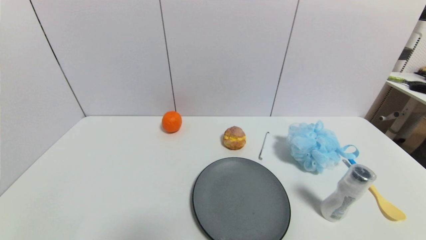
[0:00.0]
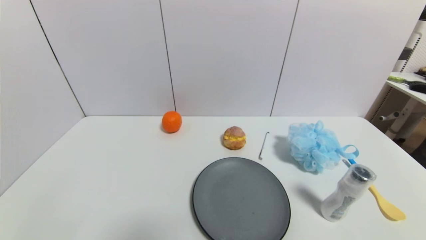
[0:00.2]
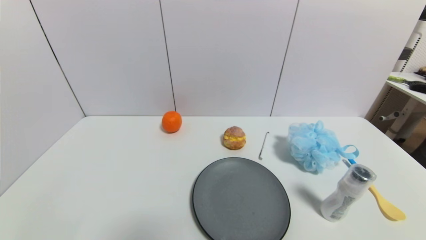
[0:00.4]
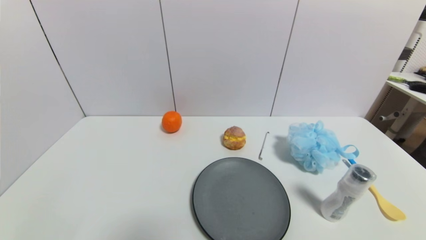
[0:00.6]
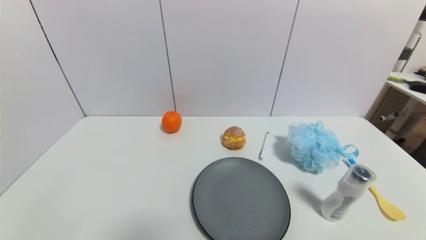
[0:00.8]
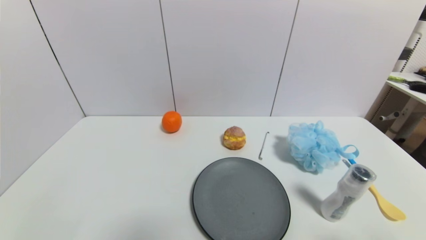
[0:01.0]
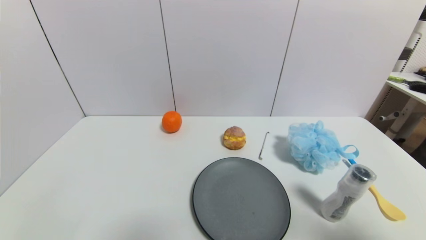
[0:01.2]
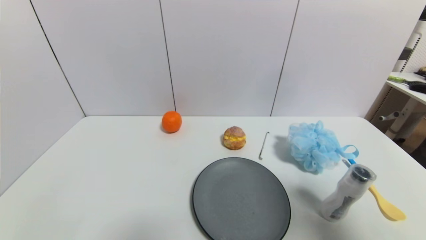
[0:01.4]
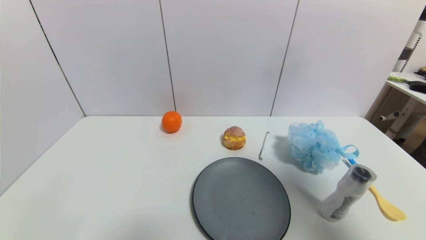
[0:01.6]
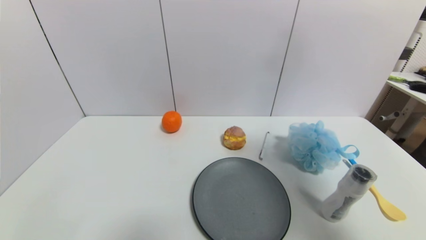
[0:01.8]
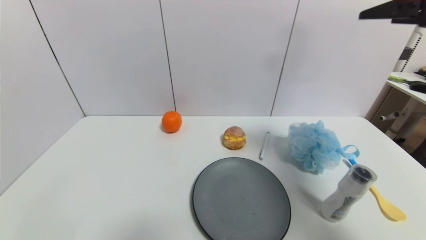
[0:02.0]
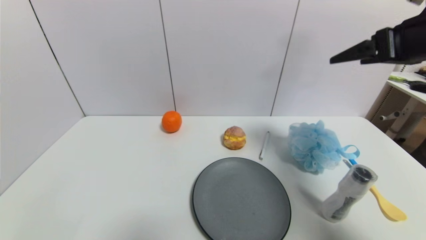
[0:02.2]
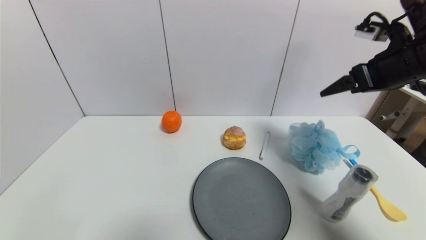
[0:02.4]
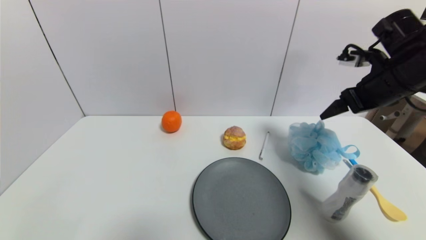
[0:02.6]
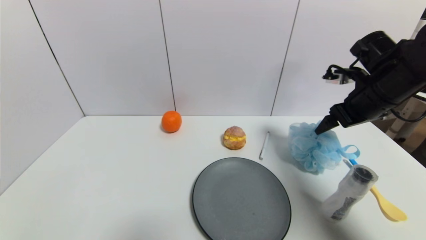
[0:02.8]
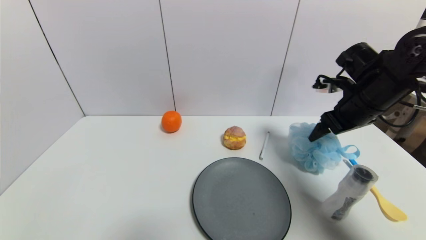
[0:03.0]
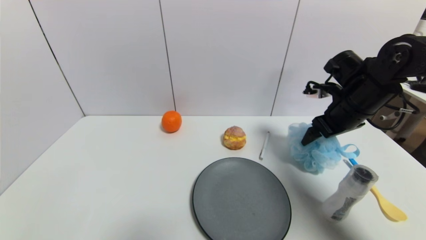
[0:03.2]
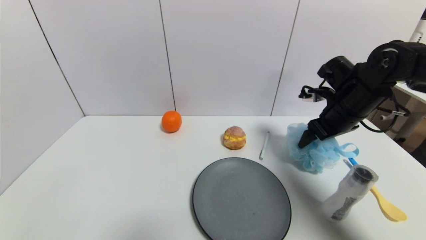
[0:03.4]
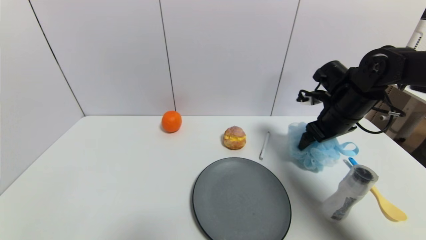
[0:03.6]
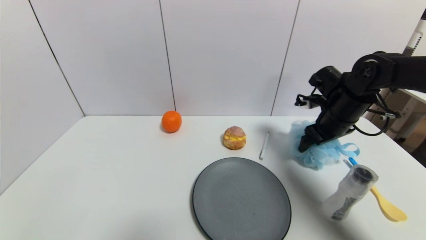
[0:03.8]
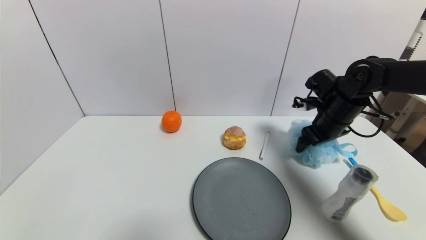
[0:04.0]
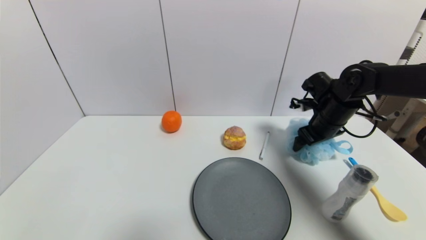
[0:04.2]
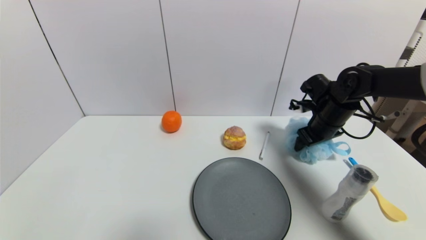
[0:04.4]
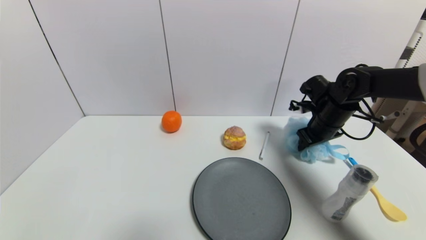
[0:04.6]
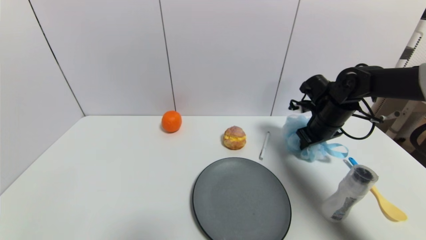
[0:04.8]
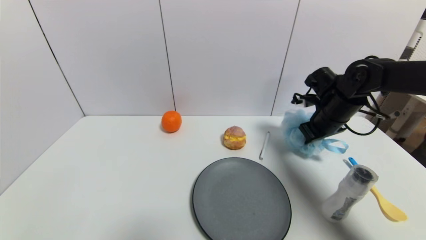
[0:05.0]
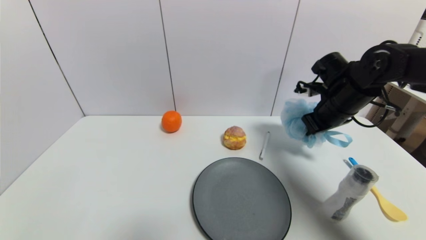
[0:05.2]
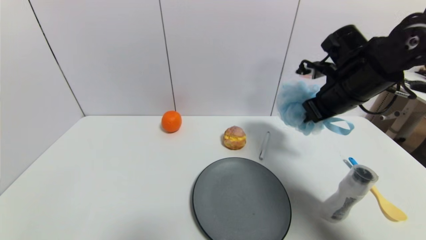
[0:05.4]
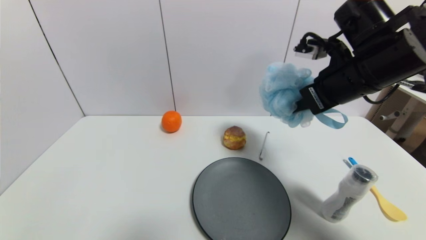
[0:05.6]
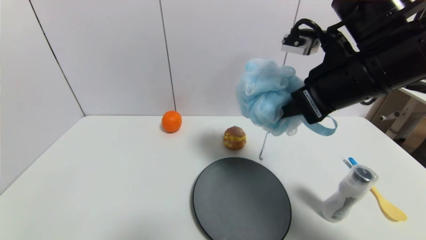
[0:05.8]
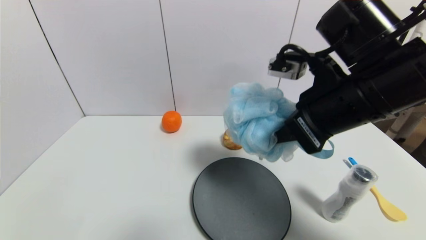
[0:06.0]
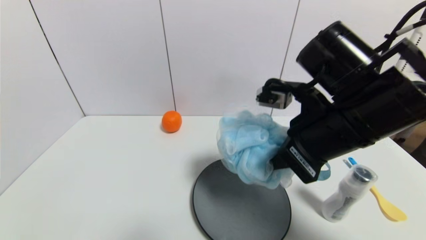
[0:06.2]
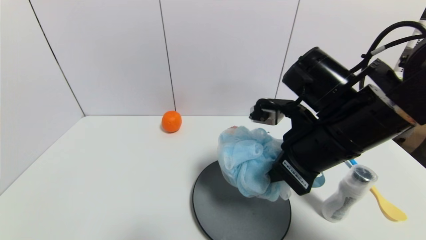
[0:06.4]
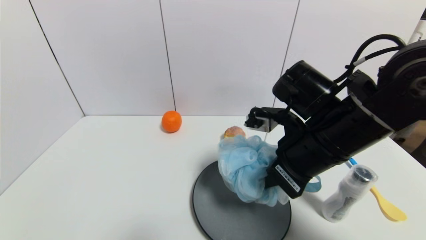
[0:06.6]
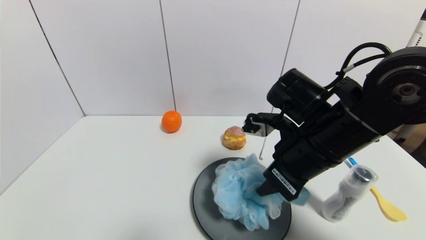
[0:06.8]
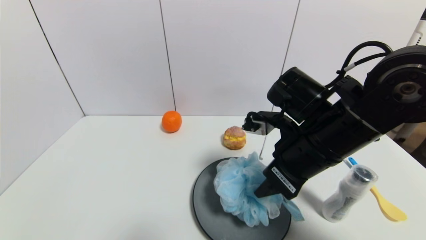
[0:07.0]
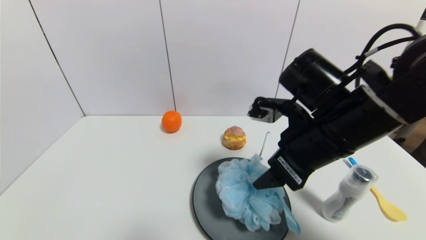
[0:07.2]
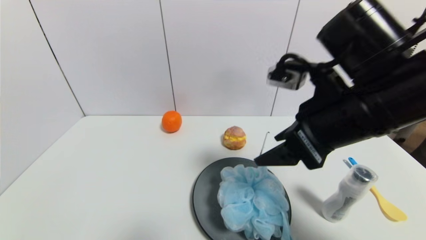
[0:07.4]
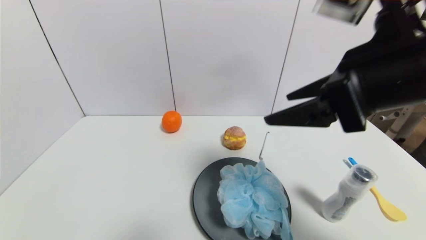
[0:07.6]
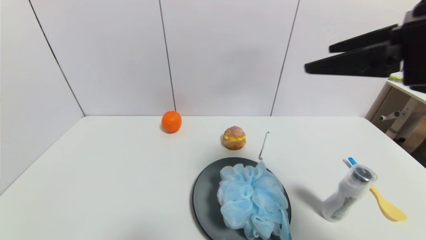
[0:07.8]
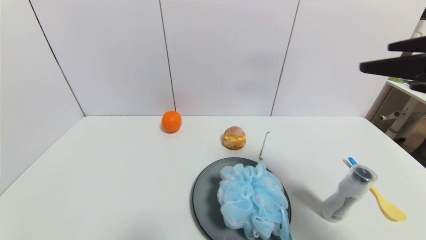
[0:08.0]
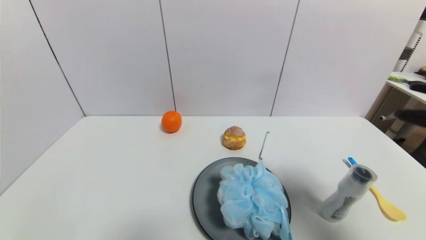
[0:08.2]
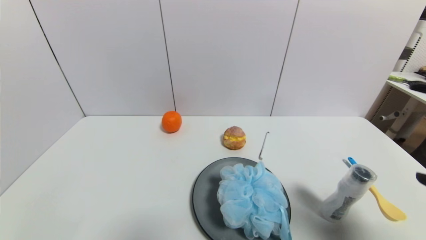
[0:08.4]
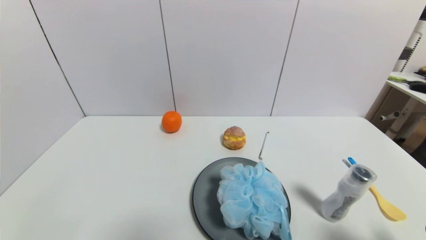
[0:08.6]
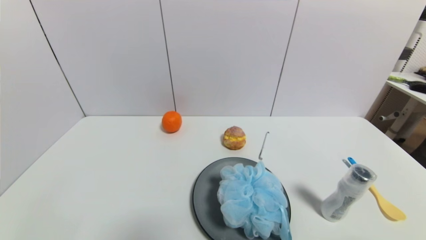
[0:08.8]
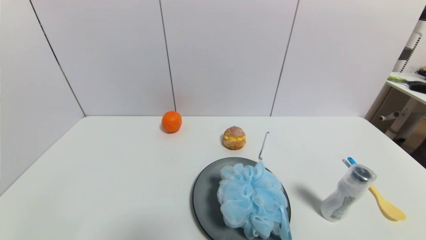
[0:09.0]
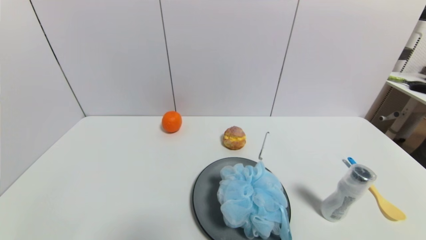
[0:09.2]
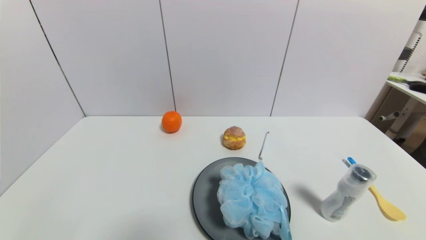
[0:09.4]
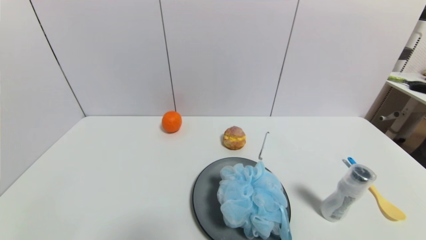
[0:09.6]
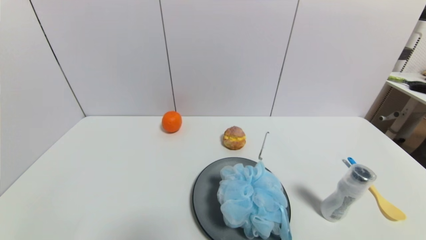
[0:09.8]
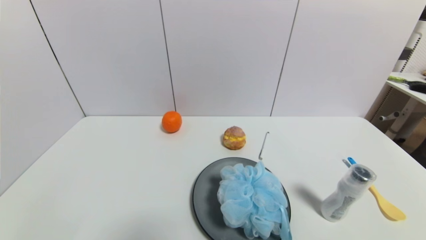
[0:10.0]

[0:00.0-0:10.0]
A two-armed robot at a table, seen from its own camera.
Task of the whole recording: use a gripper to pick the target object and place on the gray plate.
Step, 0:00.0 to 0:04.8: Grasp the shower sphere with the right gripper.
Step, 0:05.0 to 0:07.2: Place the shower sphere on the gray plate with the right gripper.
0:00.0 to 0:01.4: The right gripper goes roughly 30 cm upward.
0:01.4 to 0:02.8: The right gripper travels forward by about 25 cm.
0:02.8 to 0:04.2: The right gripper shifts approximately 10 cm downward and forward.
0:04.2 to 0:05.8: The right gripper is displaced backward, upward and to the left by approximately 25 cm, and closes up.
0:05.8 to 0:07.2: The right gripper heads downward, covering some 5 cm, and opens its fingers.
0:07.2 to 0:08.6: The right gripper is displaced backward and to the right by approximately 25 cm.
0:08.6 to 0:10.0: The right gripper shifts roughly 10 cm downward.
